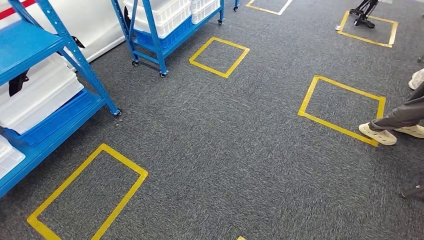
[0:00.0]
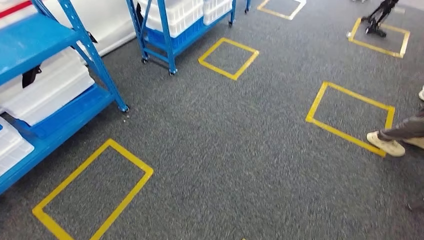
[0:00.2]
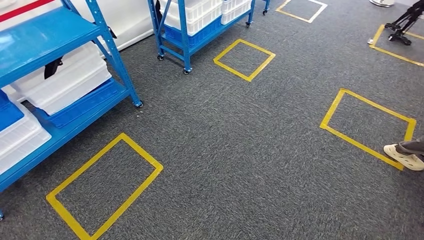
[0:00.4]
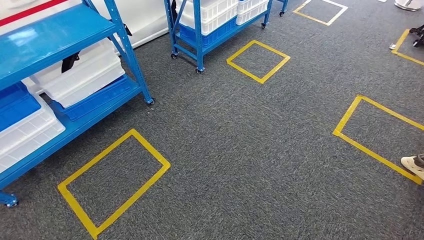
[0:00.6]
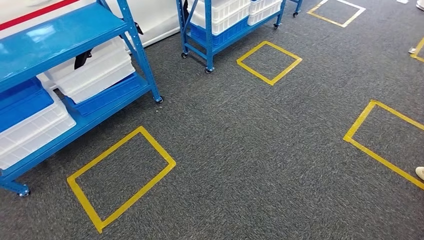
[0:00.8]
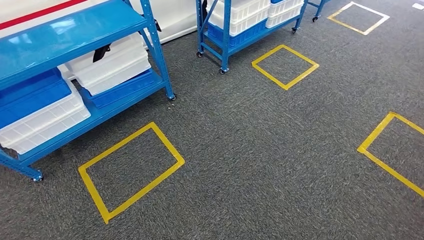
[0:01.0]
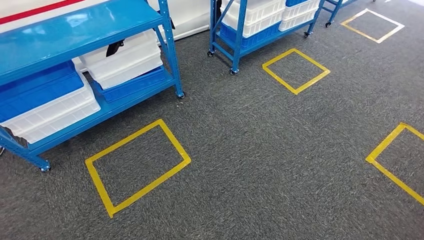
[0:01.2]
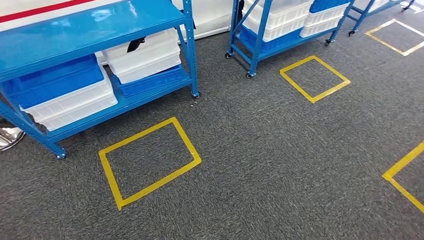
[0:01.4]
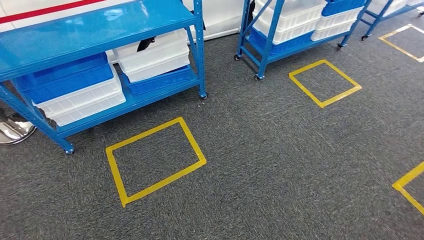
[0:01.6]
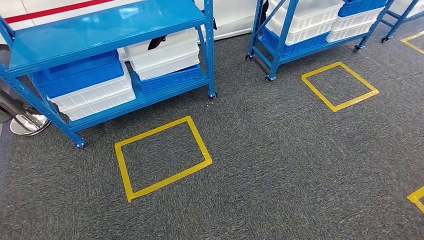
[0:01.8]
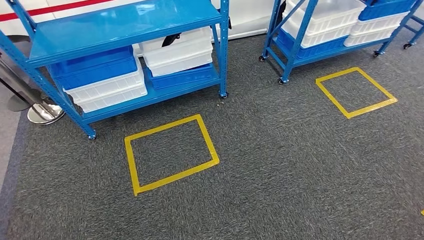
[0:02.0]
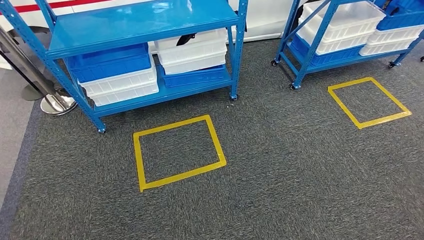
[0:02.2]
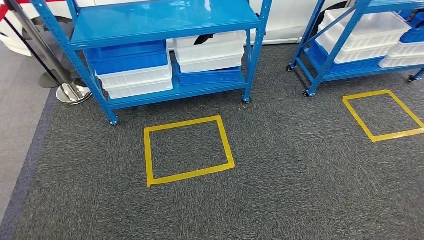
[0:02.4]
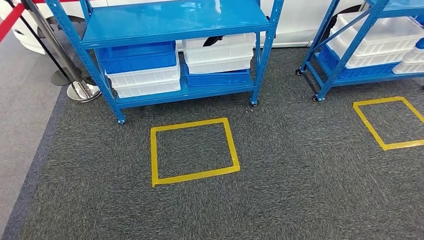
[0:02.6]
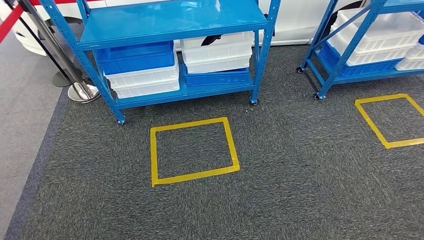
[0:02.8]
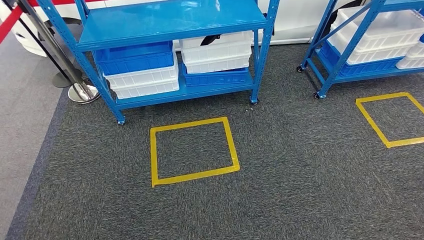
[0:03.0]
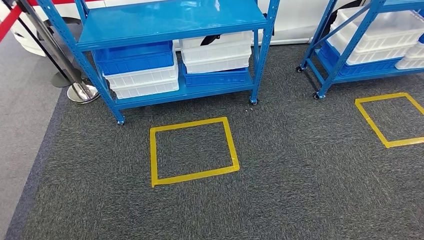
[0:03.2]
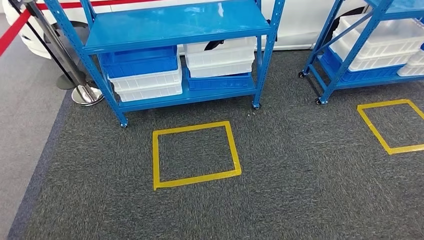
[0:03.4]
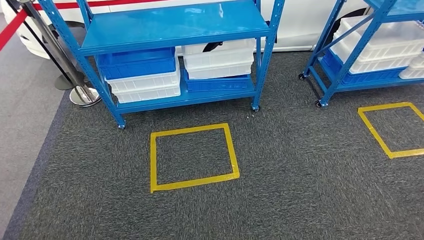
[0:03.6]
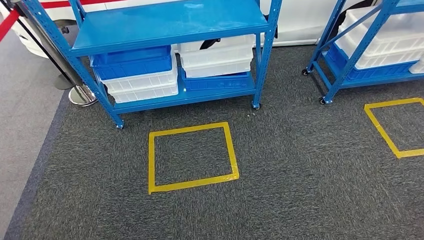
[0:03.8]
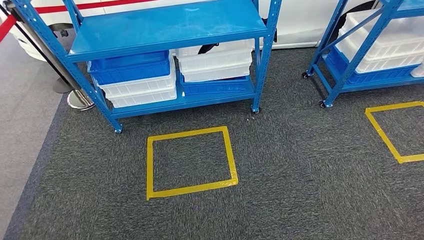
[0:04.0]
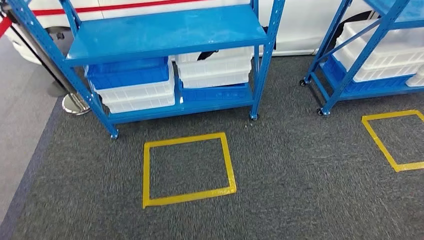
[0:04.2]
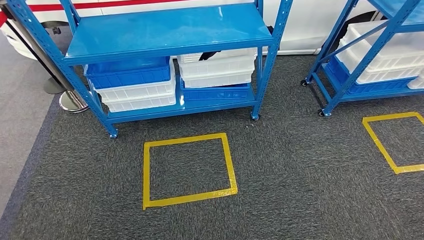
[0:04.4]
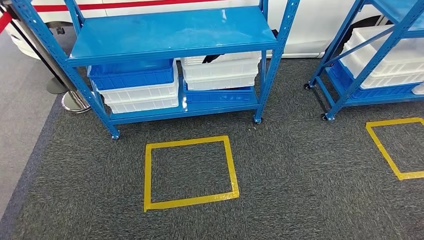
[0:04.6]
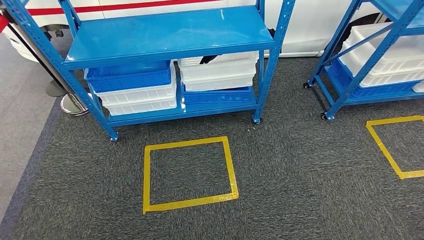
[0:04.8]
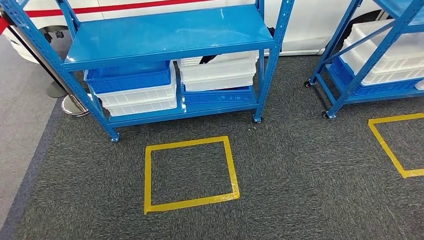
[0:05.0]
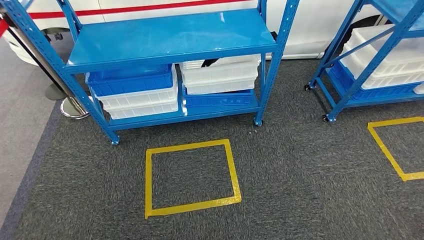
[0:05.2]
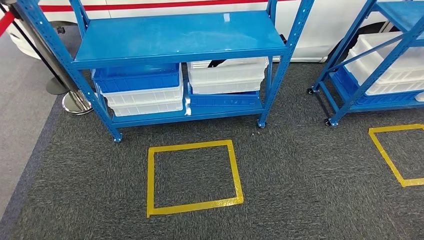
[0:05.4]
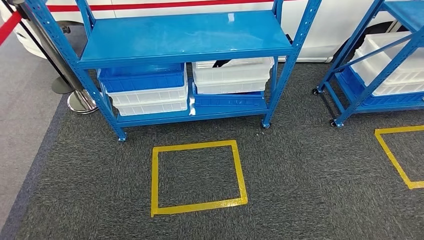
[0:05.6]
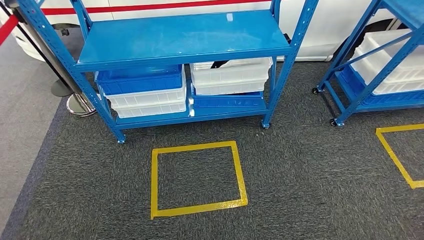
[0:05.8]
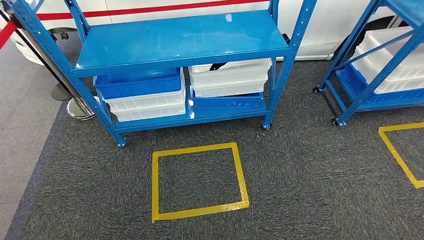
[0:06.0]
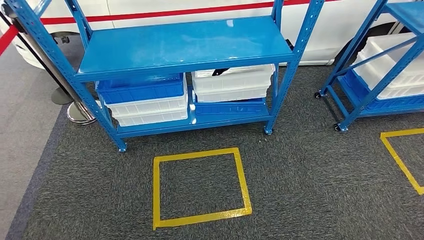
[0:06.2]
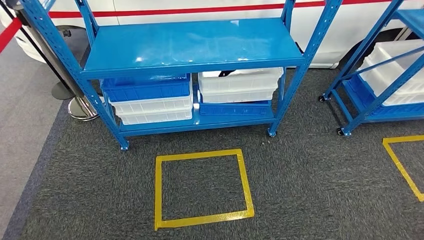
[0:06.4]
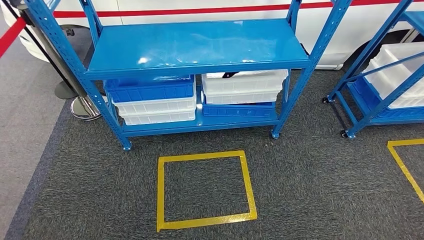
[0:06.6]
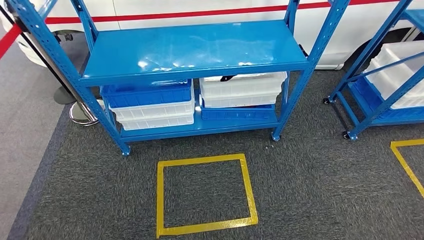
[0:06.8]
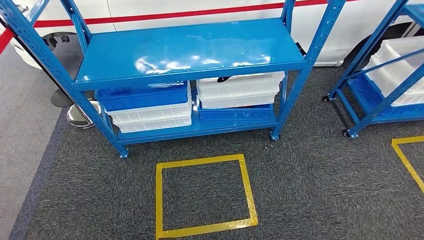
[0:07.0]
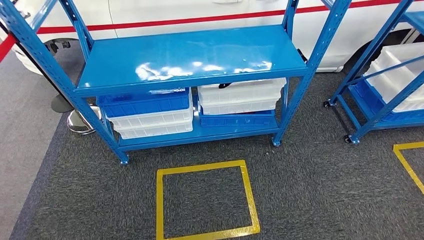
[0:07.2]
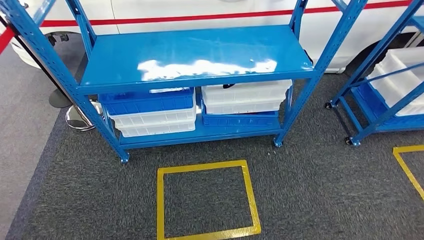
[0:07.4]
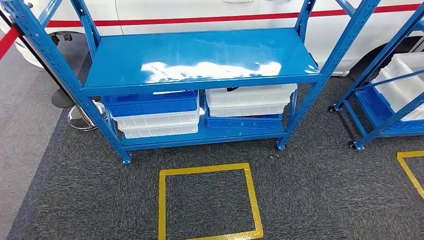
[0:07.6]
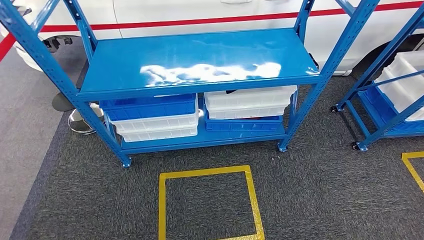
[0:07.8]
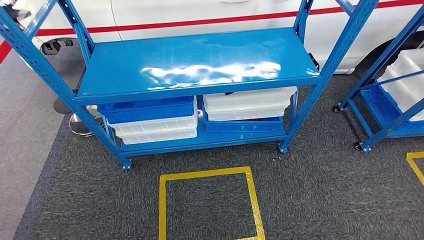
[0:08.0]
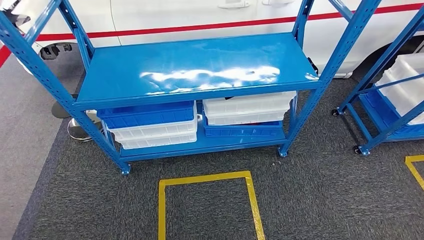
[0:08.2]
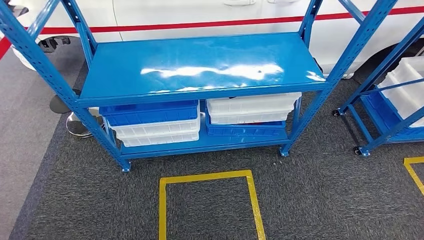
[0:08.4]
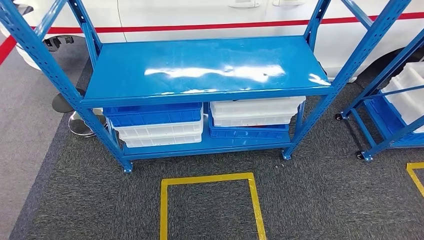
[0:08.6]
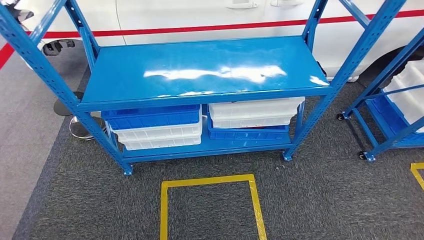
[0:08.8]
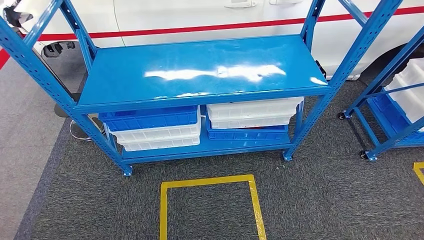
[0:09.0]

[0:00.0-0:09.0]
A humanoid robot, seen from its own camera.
Step, 0:00.0 to 0:09.0: Move to the initial position of the shelf.
